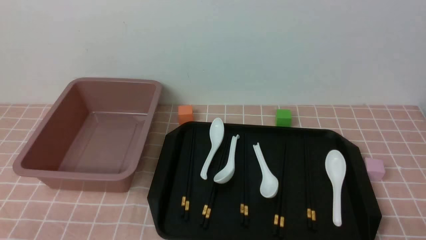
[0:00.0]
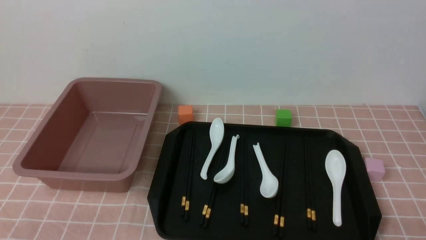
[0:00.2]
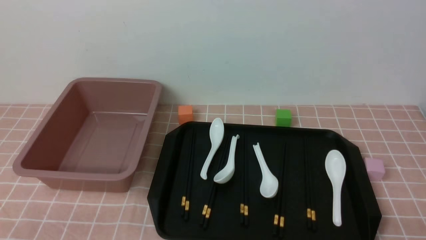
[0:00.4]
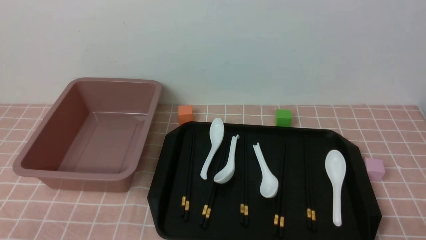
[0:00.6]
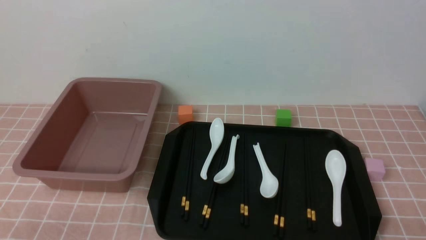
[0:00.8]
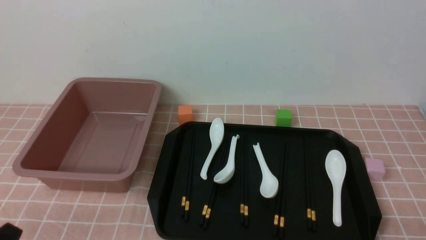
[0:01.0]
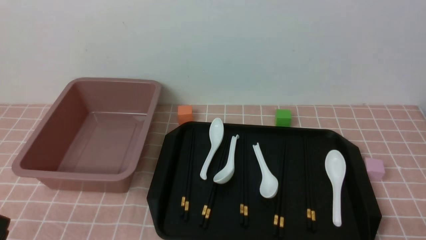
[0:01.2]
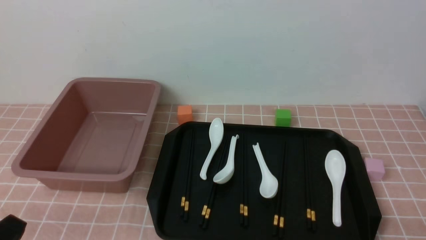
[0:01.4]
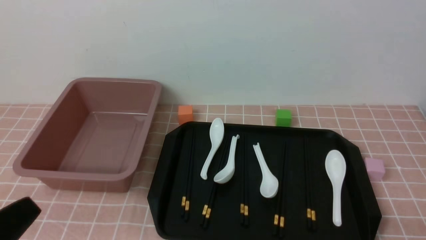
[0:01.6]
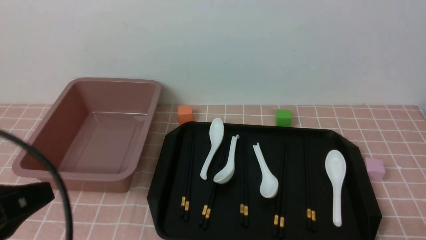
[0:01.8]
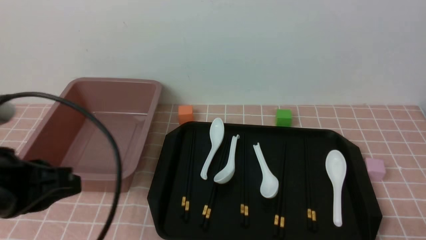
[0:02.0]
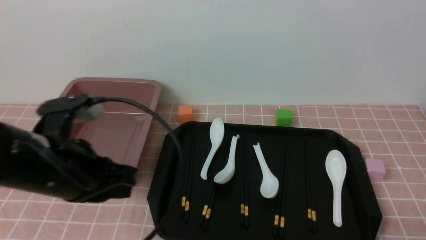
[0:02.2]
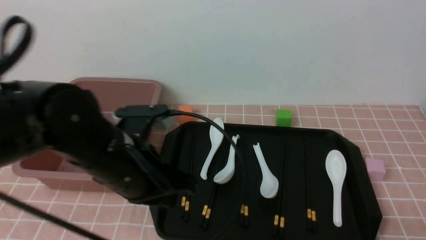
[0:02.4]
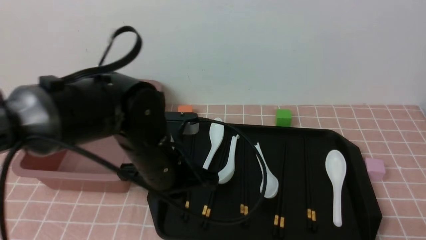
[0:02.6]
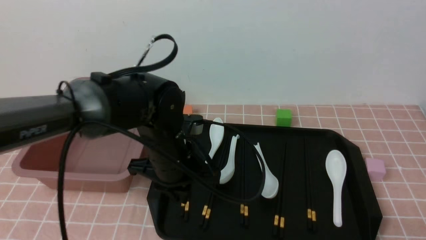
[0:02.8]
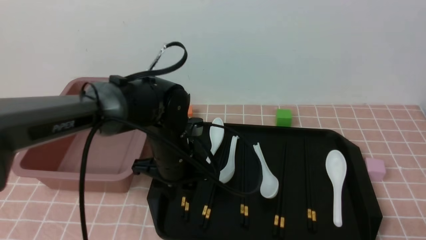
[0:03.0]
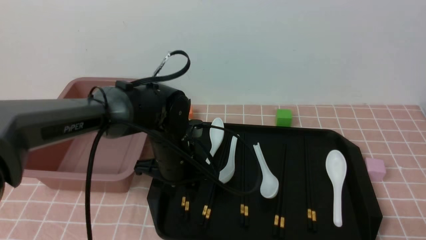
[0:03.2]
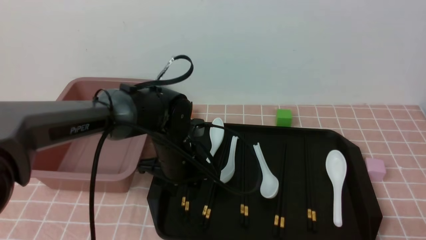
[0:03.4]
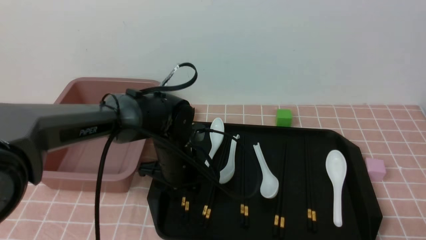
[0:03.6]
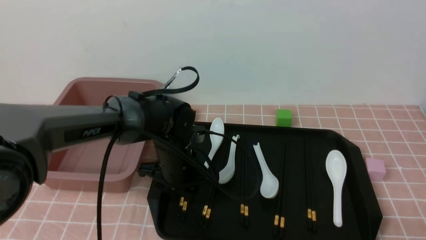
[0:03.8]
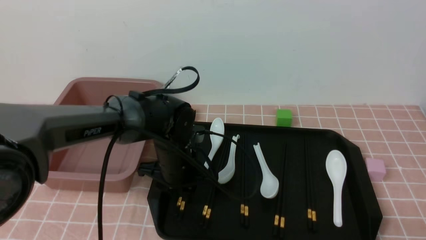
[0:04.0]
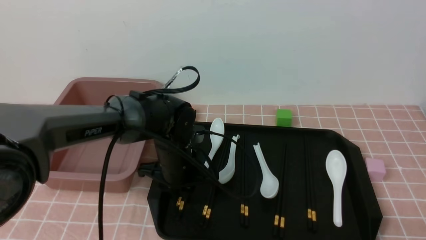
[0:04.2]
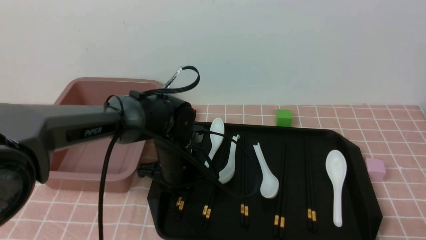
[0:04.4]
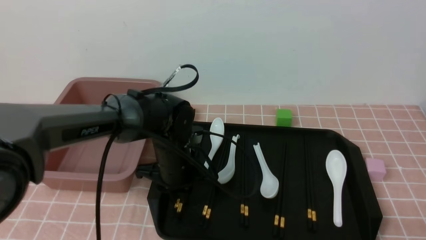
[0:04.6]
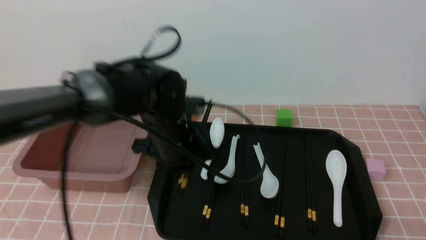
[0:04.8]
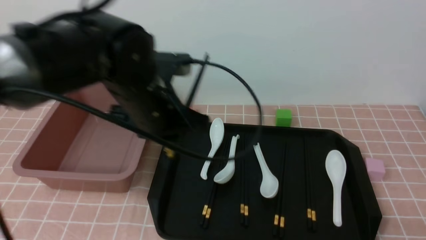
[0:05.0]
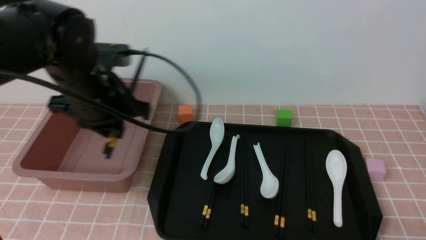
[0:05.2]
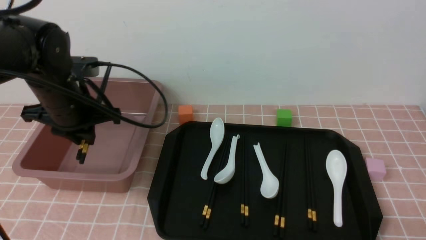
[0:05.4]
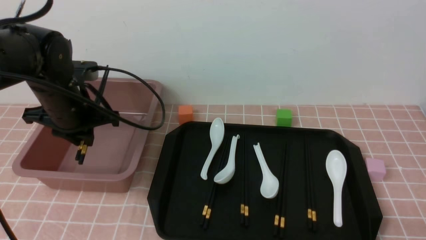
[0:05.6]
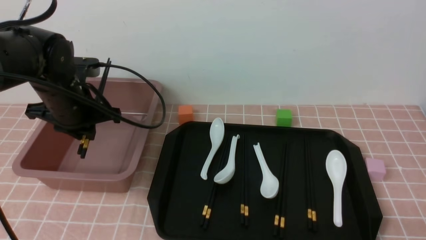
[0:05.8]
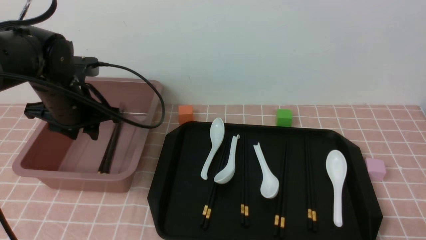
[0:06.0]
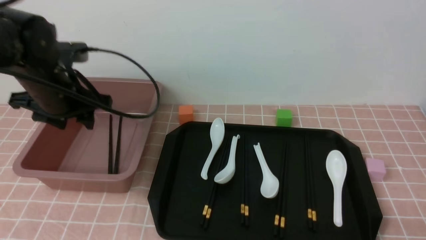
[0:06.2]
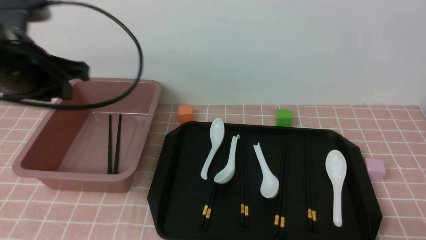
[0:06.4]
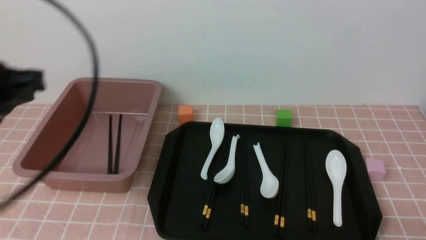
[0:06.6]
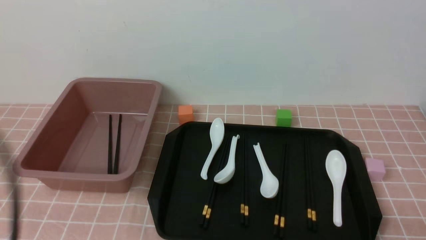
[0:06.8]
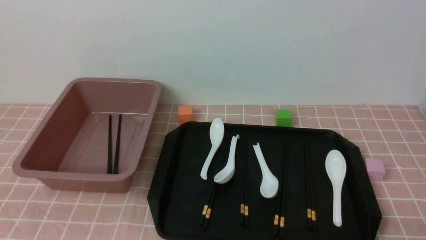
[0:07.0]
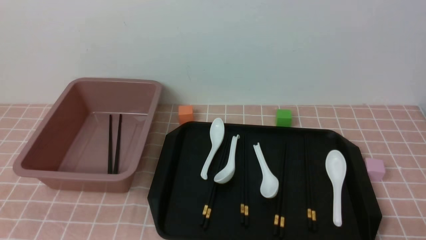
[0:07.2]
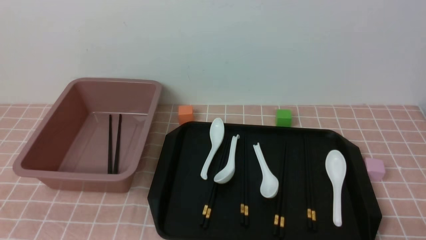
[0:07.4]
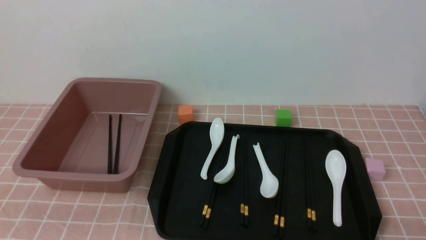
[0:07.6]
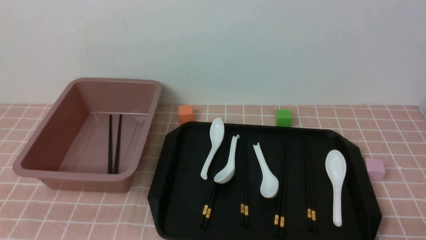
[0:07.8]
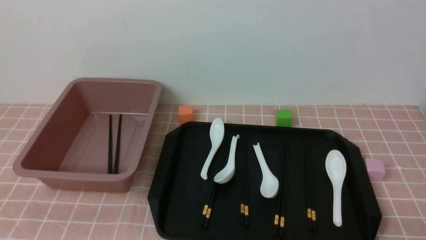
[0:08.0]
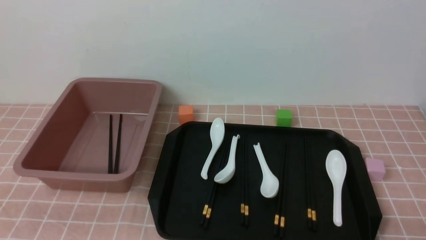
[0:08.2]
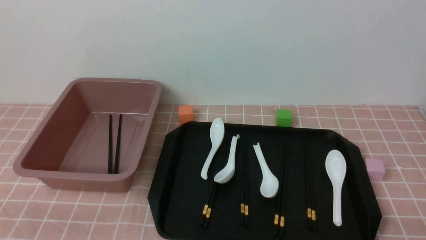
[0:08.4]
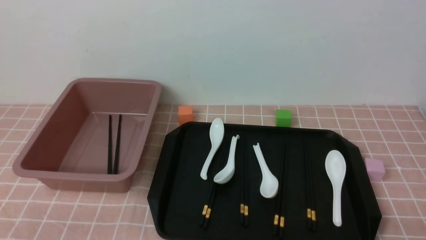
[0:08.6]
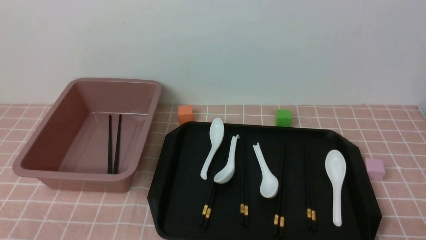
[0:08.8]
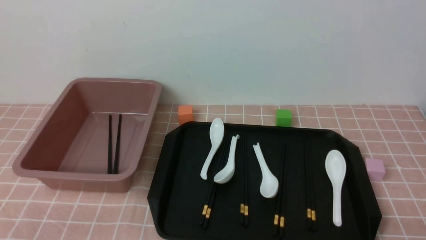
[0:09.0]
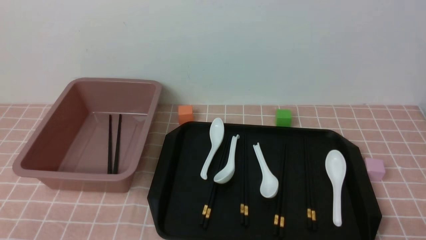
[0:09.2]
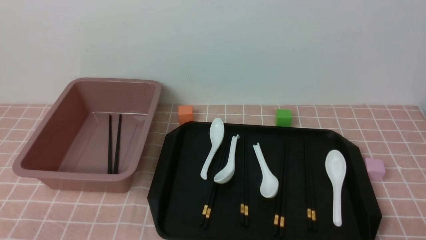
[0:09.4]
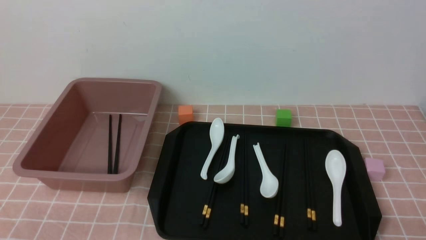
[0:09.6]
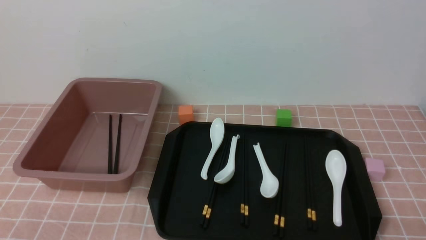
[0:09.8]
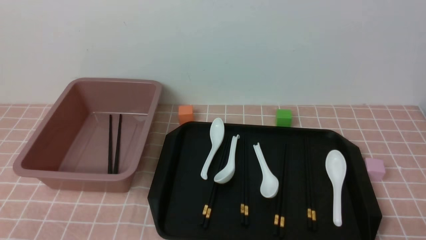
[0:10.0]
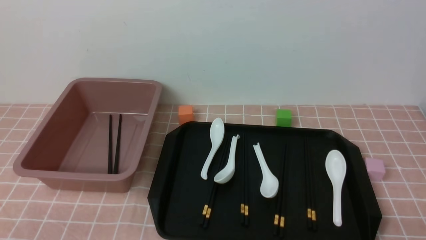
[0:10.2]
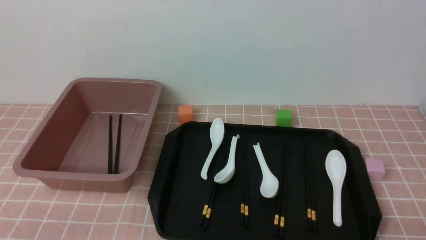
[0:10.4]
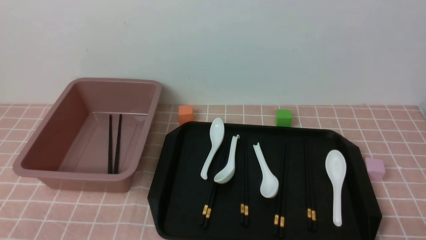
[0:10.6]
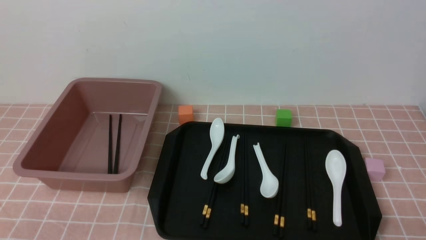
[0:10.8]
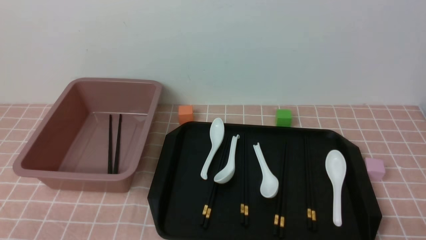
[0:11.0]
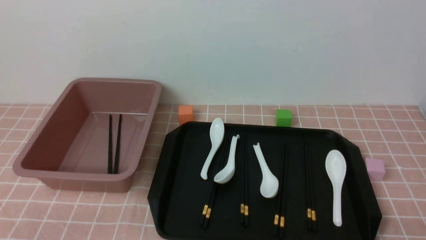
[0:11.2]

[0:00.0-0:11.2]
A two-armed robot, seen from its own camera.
Step, 0:00.0 to 0:05.0: use the left arm to grab a pair of chopsticks.
Step, 0:05.2 to 0:06.2: use the left arm to put the chopsticks into the lunch box.
0:00.0 to 0:01.6: The left gripper is displaced upward by some 10 cm, and closes up.
0:01.6 to 0:03.2: The left gripper moves forward and to the right, roughly 30 cm, and opens up.
0:03.2 to 0:04.8: The left gripper heads upward, covering about 5 cm, and closes its fingers.
0:04.8 to 0:06.4: The left gripper shifts some 20 cm to the left and upward, and opens, then closes again.
0:06.4 to 0:08.0: The left gripper moves backward and downward, approximately 25 cm, and closes.
0:09.6 to 0:11.2: Both grippers stay about where they are.
